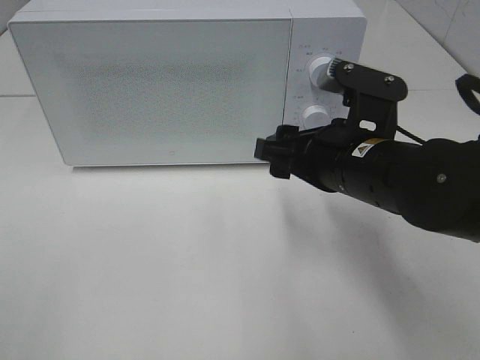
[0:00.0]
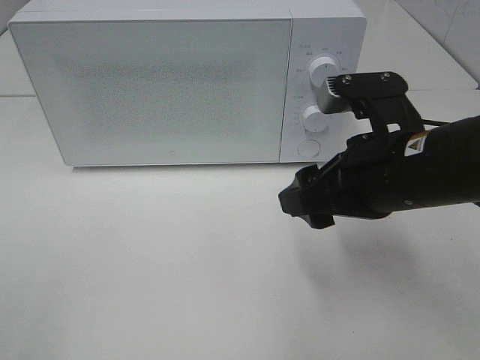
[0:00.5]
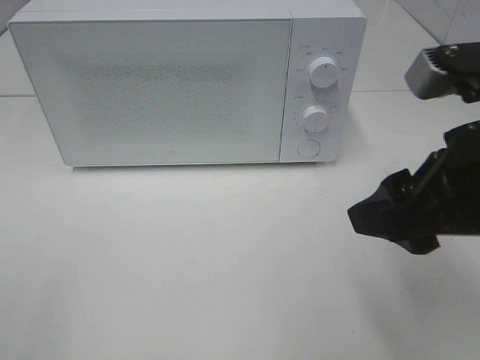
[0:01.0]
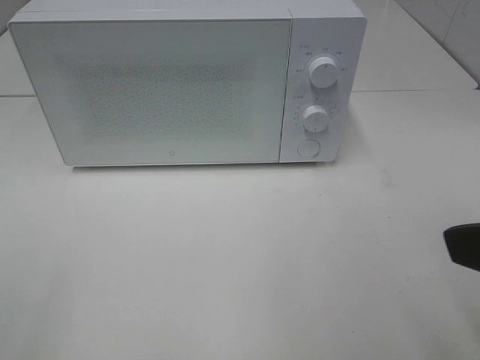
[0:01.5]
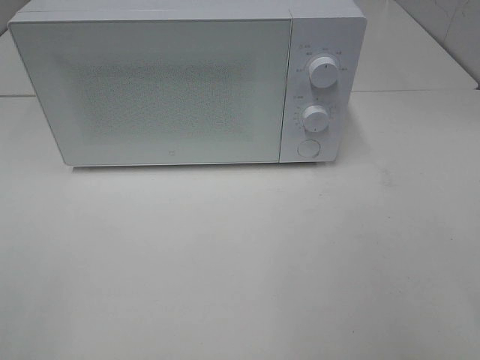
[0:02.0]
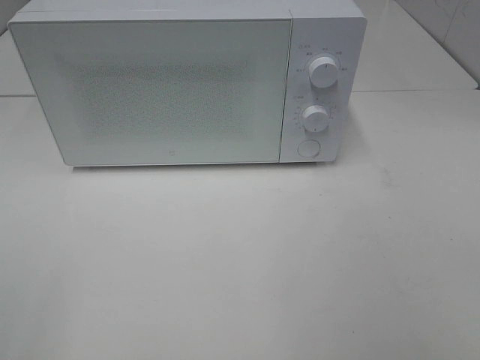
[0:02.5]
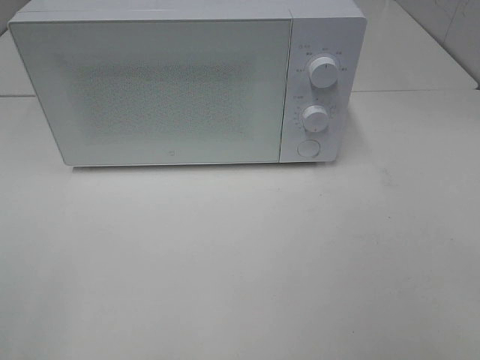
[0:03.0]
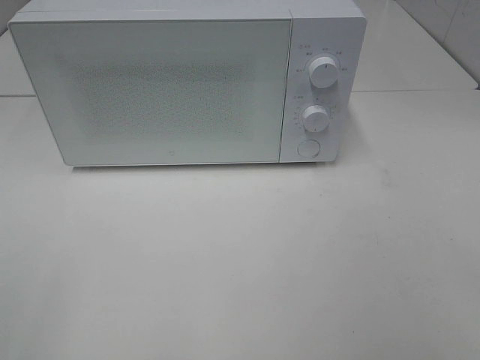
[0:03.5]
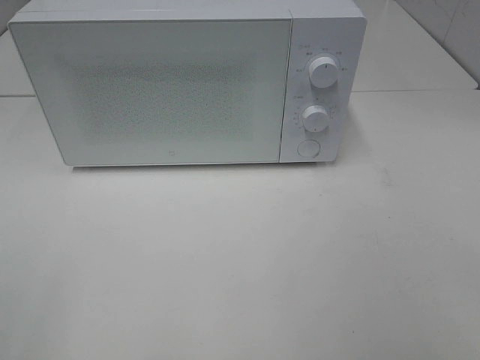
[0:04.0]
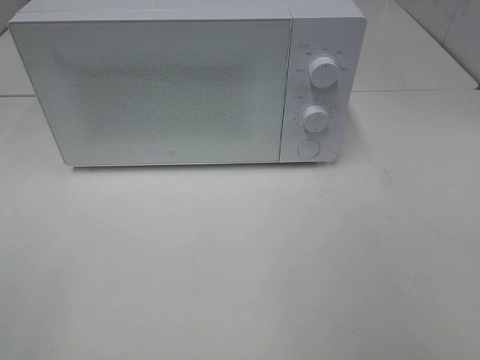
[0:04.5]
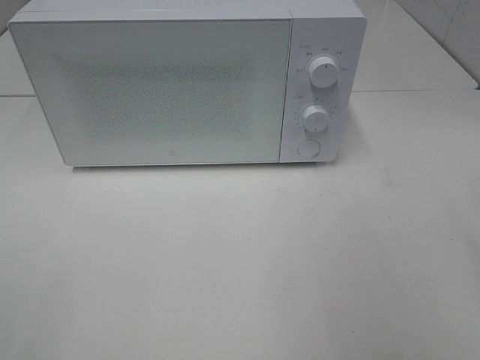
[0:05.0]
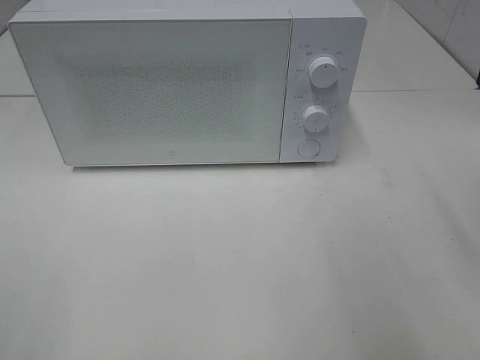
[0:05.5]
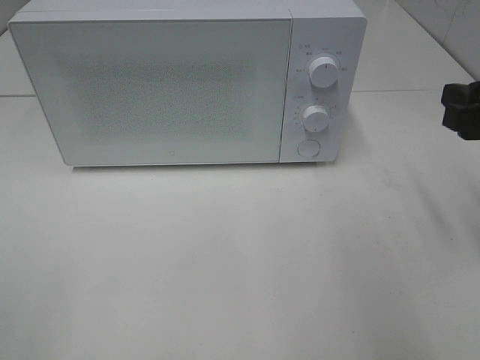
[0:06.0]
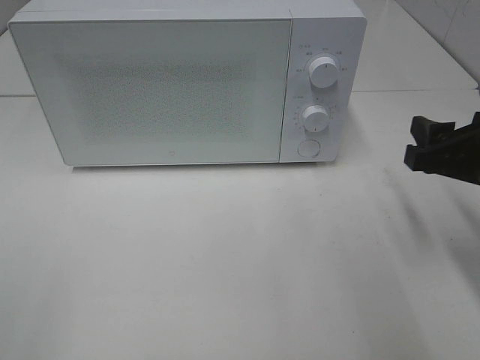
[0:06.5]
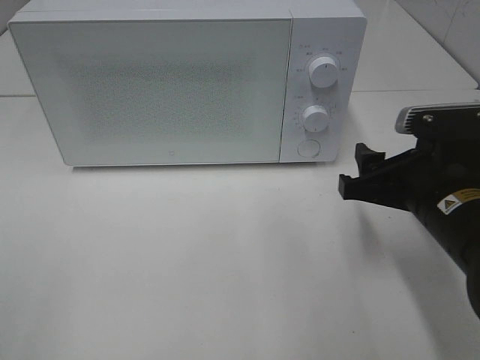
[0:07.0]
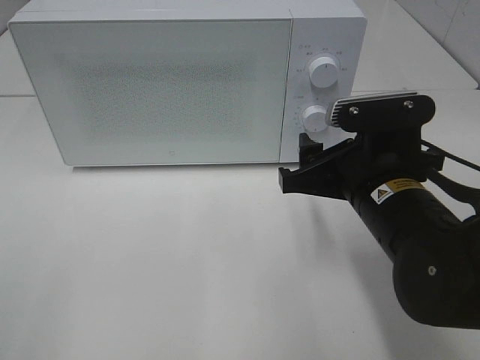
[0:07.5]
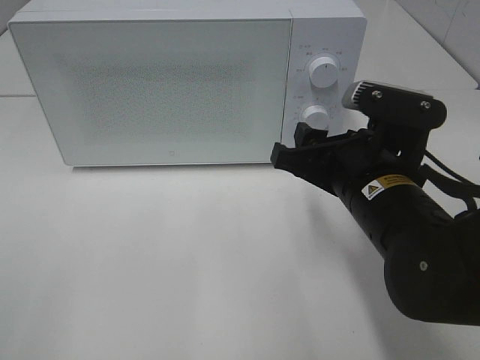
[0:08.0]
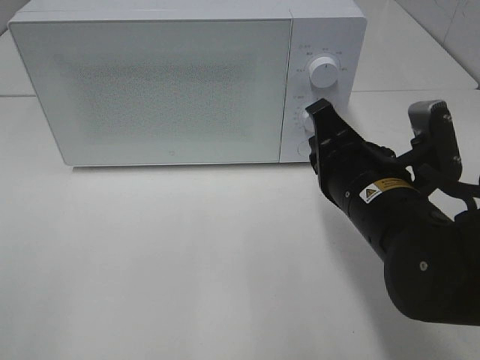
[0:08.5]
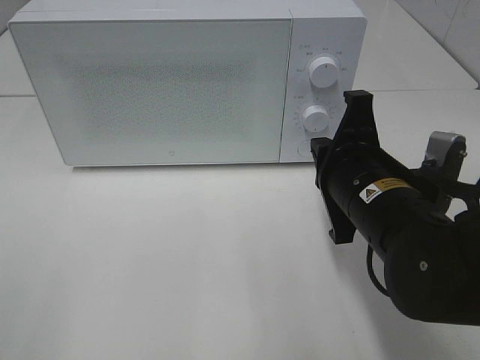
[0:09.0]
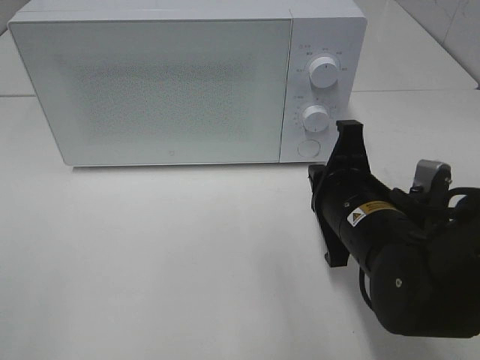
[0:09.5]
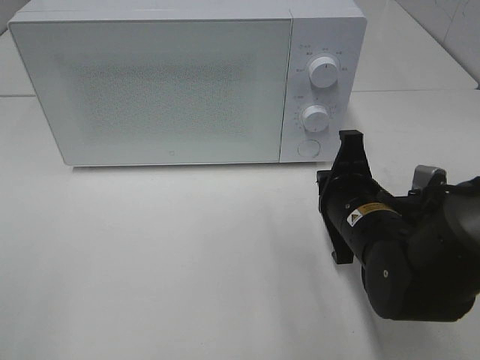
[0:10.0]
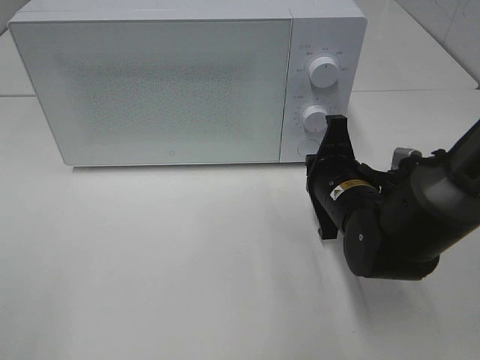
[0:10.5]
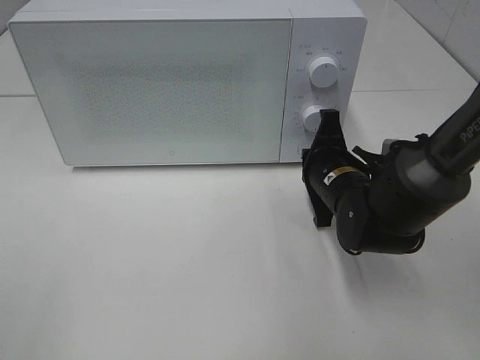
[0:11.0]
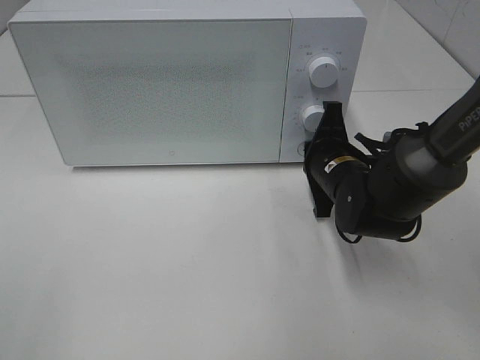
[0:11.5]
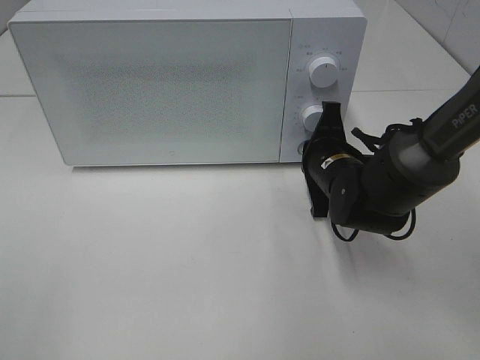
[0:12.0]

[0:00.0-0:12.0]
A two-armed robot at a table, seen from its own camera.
Task of the whole recording: Heat the burger.
0.0 to 2.0 s: The right gripper goes about 30 cm backward, to the right and upward.
4.0 to 6.0 s: The right gripper moves forward, roughly 20 cm.
6.0 to 8.0 s: The right gripper is displaced to the left and downward by roughly 15 cm.
8.0 to 10.0 s: The right gripper travels downward by roughly 5 cm, and closes up.
10.0 to 12.0 s: The right gripper moves forward, approximately 10 cm.

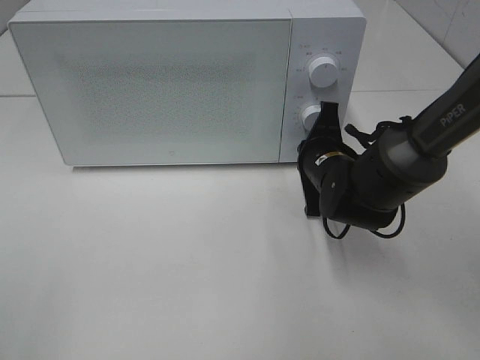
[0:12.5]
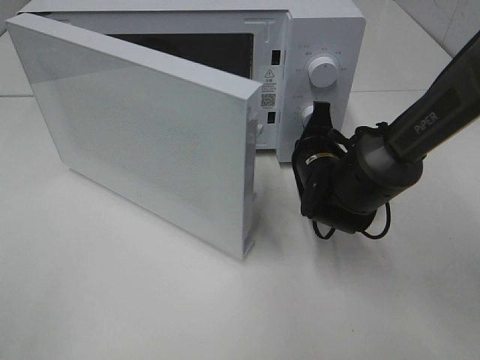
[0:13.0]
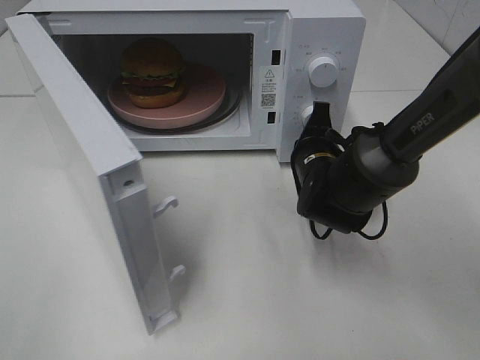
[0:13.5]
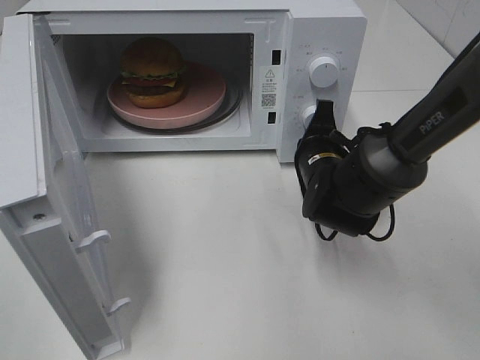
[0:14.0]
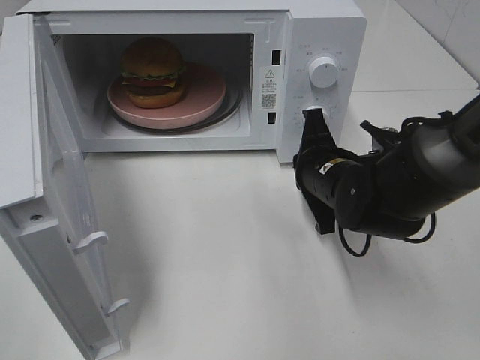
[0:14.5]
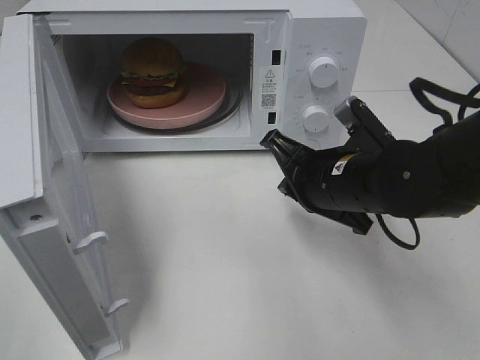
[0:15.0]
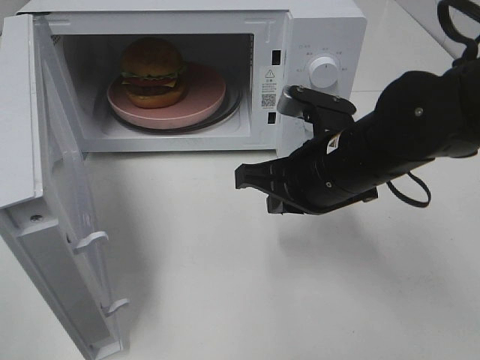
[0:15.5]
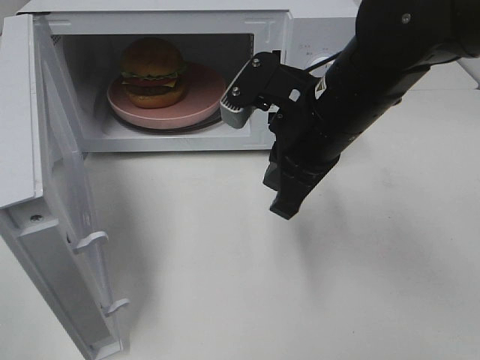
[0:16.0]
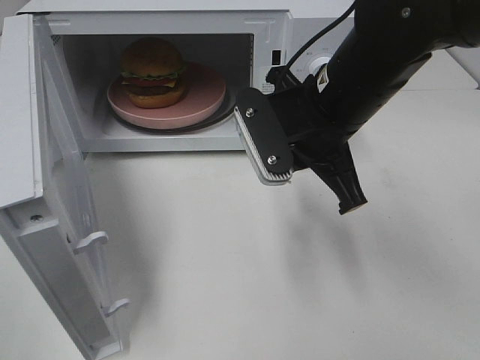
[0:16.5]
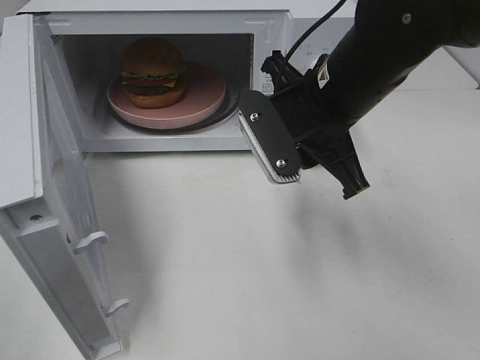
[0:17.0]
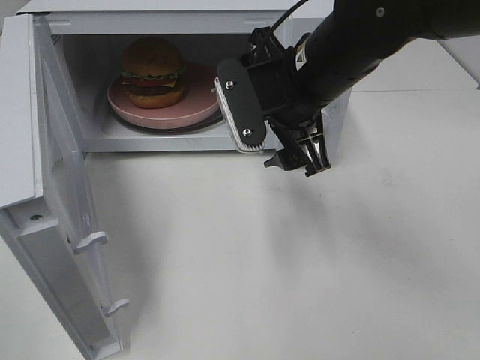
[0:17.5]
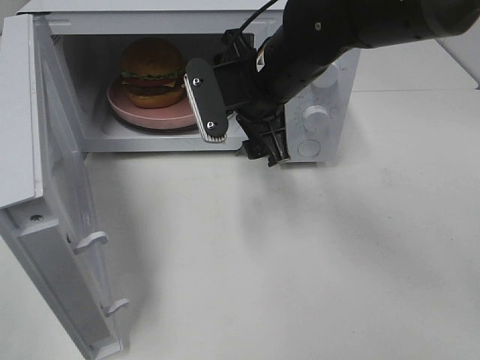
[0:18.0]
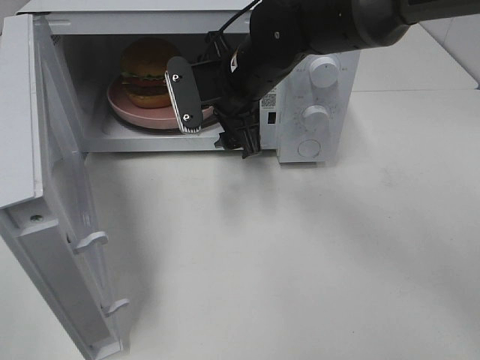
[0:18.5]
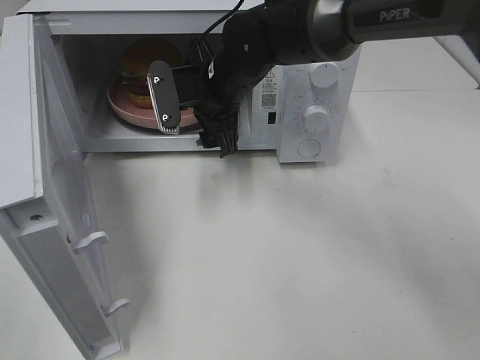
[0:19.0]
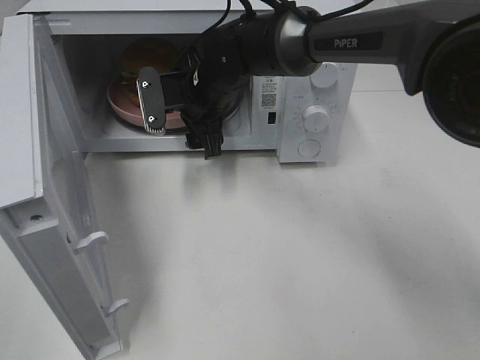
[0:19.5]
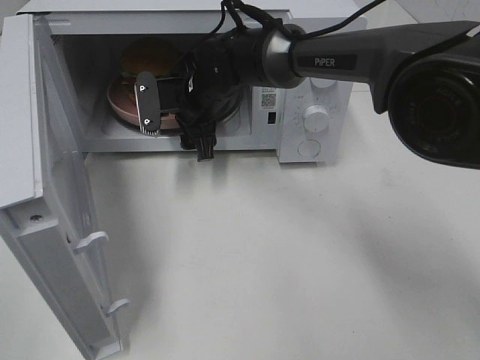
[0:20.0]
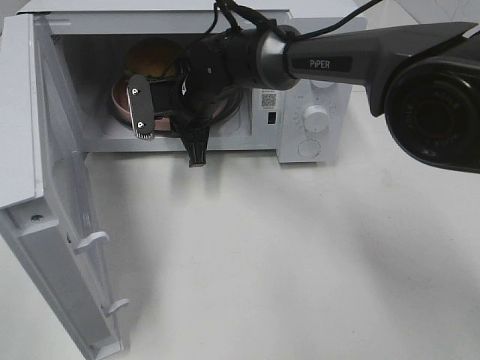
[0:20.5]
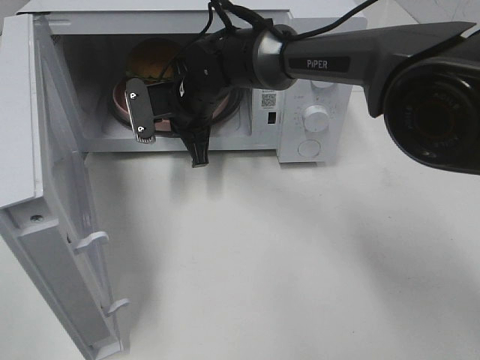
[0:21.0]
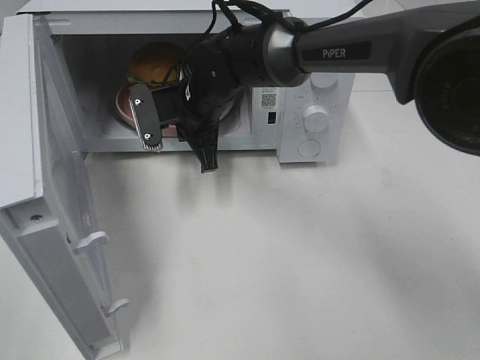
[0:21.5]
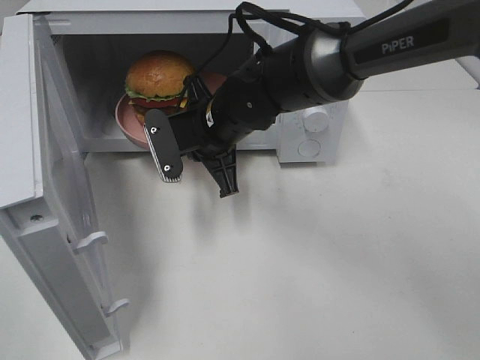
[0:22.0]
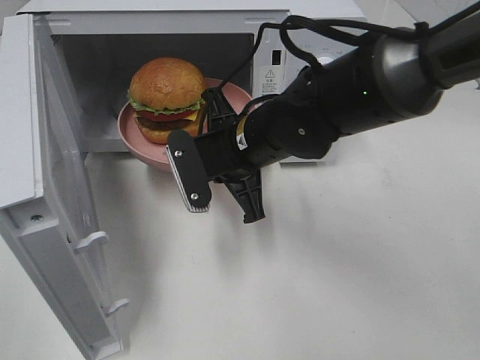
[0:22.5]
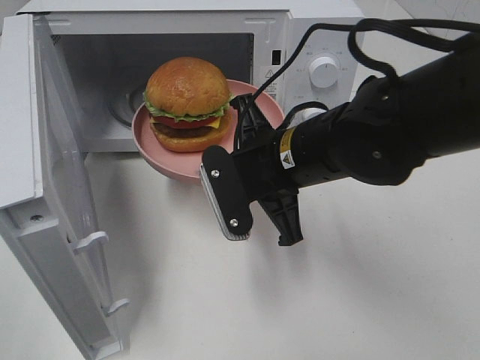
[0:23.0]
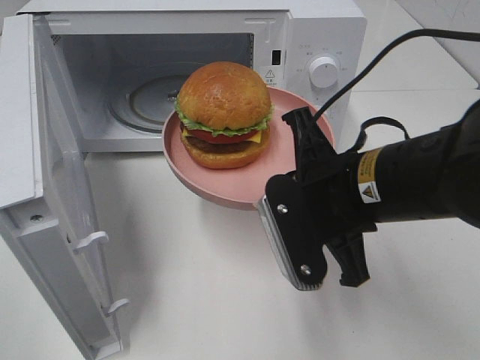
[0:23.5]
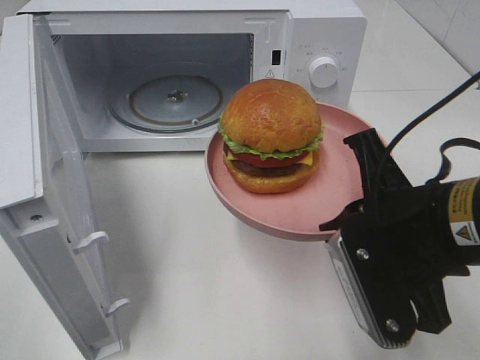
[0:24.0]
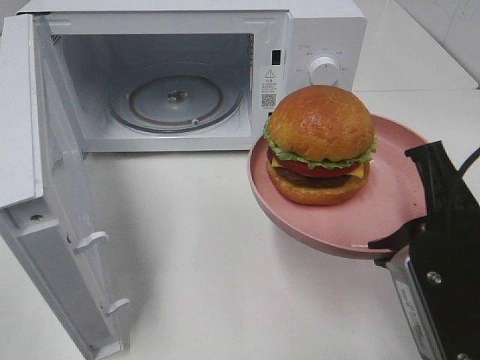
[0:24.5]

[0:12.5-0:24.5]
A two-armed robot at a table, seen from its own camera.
Task of the whole recording: Heat the burger.
Step, 14.5 to 20.5 s: Right hand: grab the plate with the hamburger.
14.5 to 16.5 s: The right gripper travels upward by some 10 cm.
16.5 to 18.5 s: The right gripper moves forward and to the left, about 10 cm, and opens its fingers.
18.5 to 20.5 s: The right gripper moves downward, to the left and forward, roughly 10 cm, and closes.
20.5 to 22.5 s: The right gripper goes about 15 cm backward and to the right.
22.5 to 24.5 s: The right gripper goes about 25 cm backward and to the right.

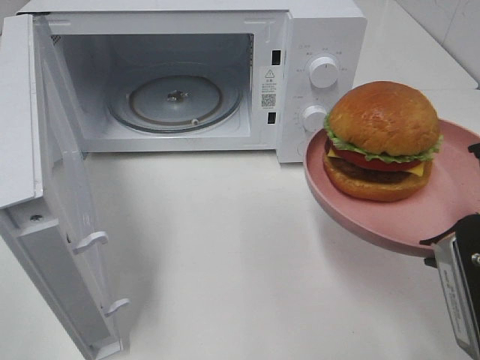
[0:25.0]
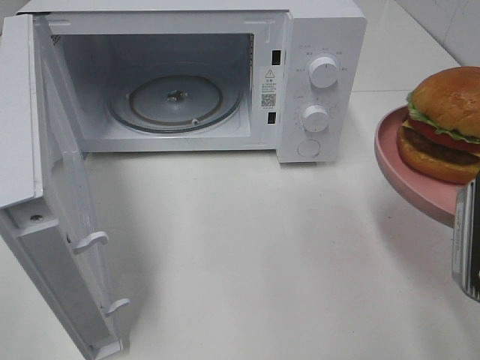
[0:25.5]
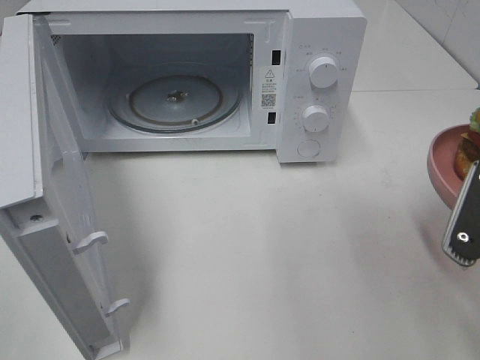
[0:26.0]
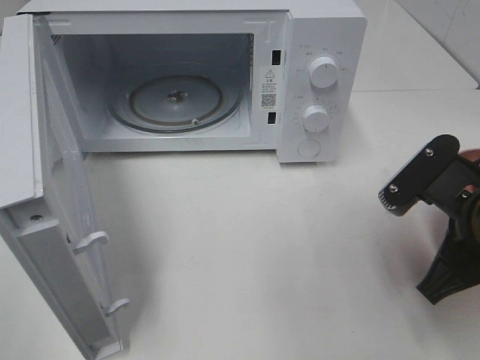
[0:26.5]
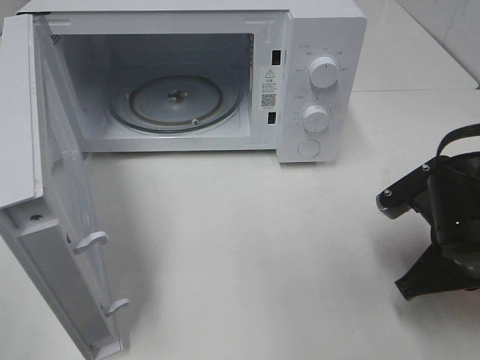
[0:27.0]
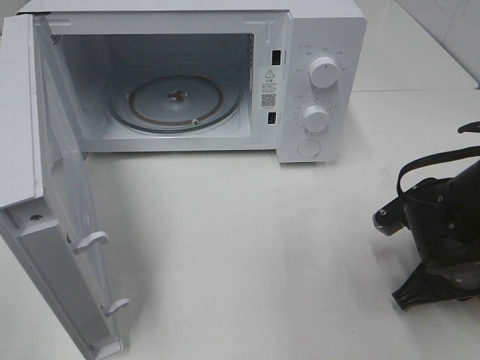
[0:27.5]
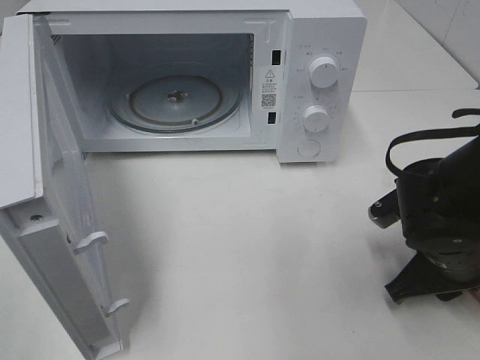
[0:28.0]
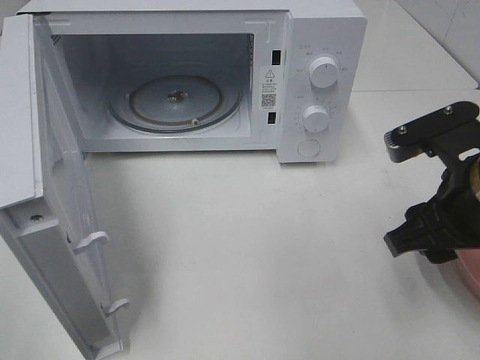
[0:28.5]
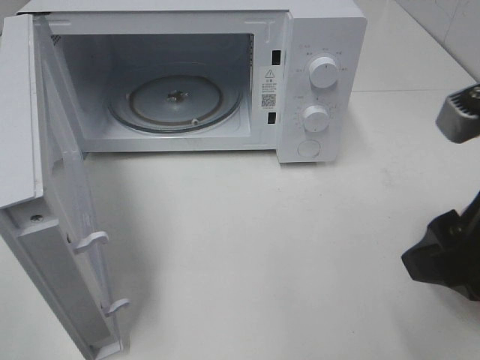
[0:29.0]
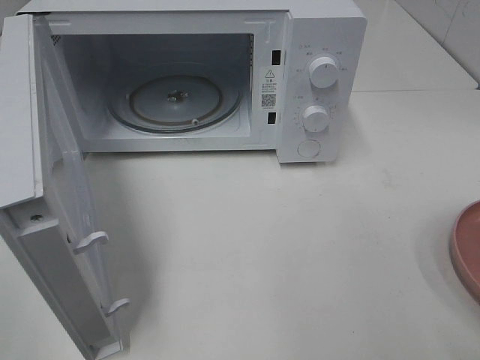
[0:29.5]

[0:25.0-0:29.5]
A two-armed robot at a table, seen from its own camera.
Task of the whole recording: Heat the burger.
Step, 25.0 to 27.5 s: Right hand: place the plate on the table.
25.0 to 27.0 s: The right gripper moves downward and forward, roughly 15 cm.
27.0 to 29.5 s: The right gripper heads upward and backward, covering approximately 20 cm, and opens up.
